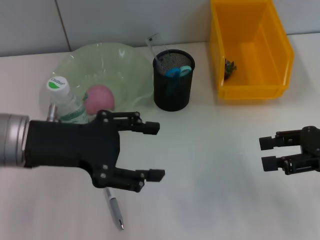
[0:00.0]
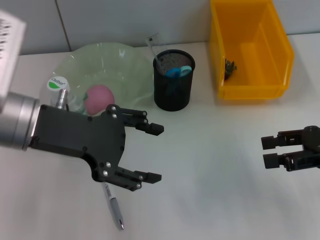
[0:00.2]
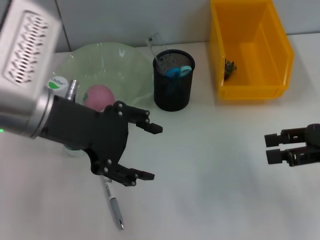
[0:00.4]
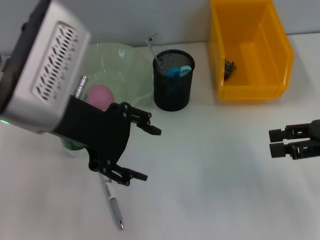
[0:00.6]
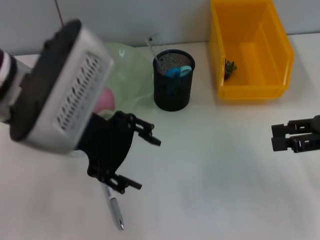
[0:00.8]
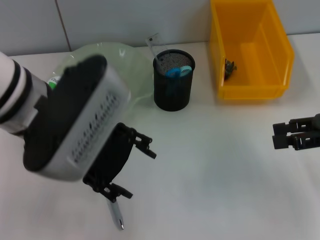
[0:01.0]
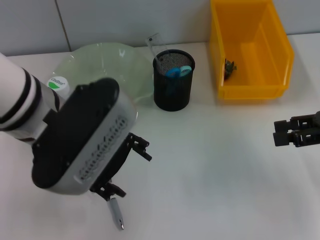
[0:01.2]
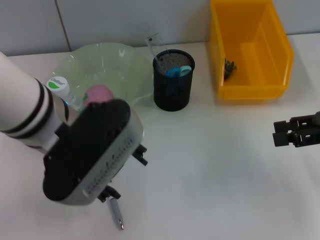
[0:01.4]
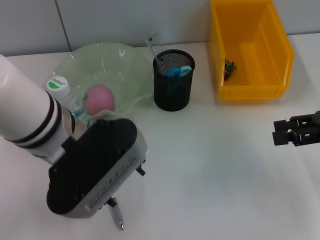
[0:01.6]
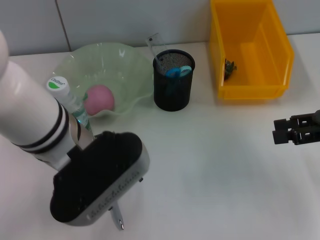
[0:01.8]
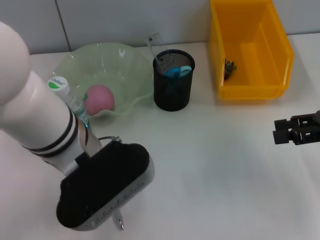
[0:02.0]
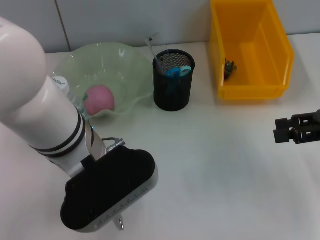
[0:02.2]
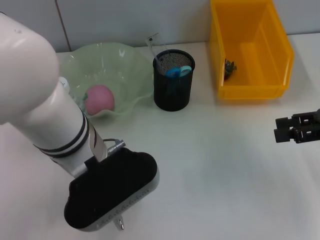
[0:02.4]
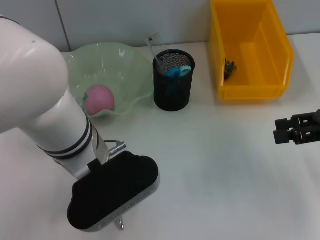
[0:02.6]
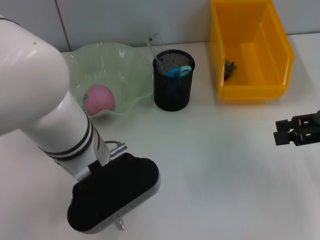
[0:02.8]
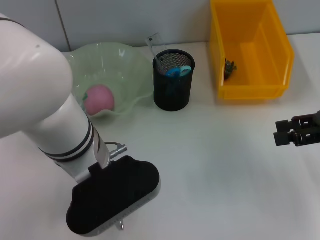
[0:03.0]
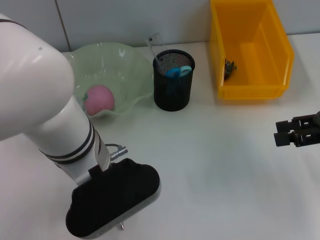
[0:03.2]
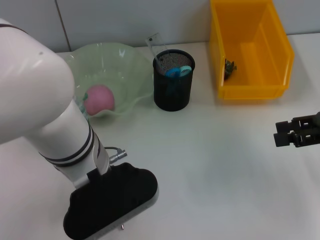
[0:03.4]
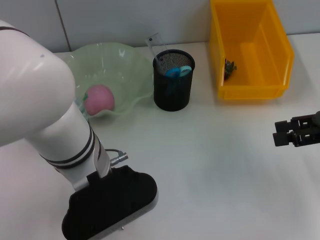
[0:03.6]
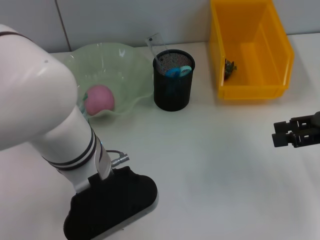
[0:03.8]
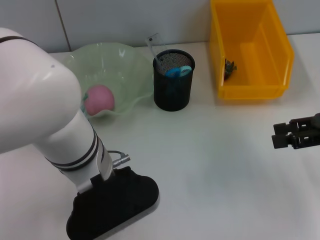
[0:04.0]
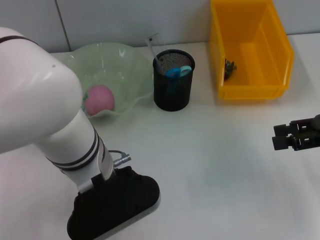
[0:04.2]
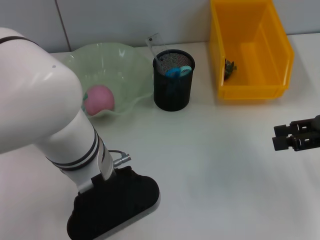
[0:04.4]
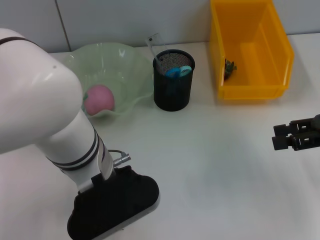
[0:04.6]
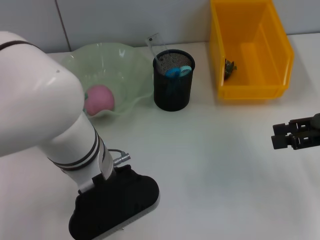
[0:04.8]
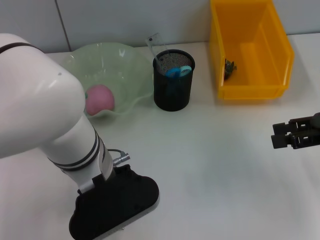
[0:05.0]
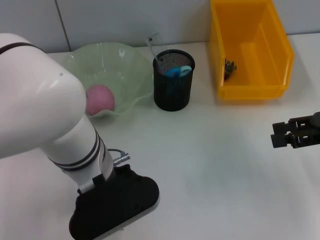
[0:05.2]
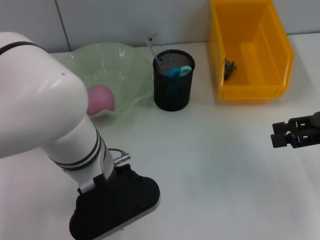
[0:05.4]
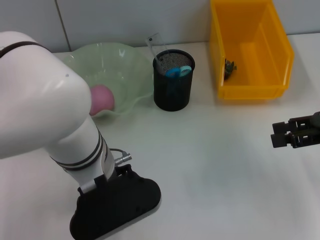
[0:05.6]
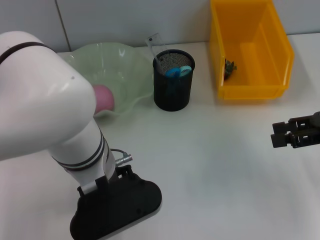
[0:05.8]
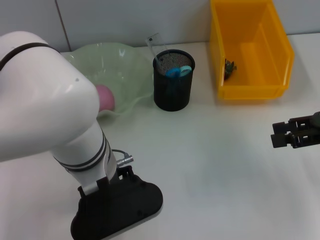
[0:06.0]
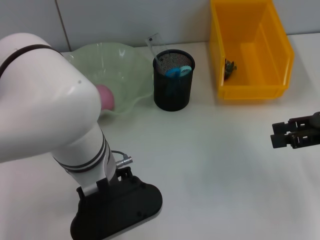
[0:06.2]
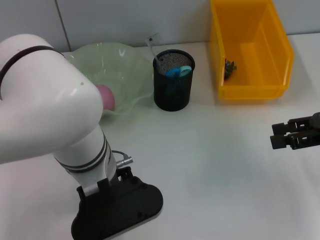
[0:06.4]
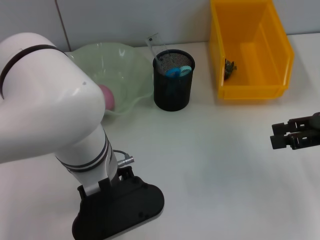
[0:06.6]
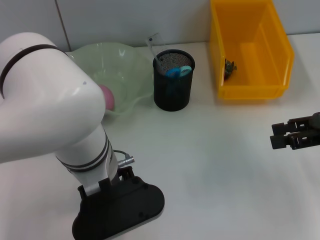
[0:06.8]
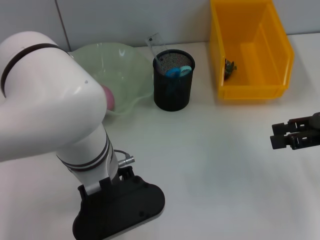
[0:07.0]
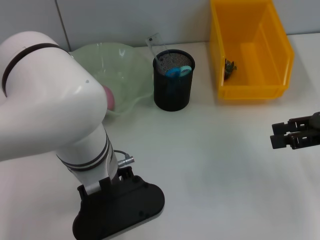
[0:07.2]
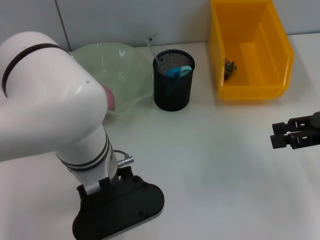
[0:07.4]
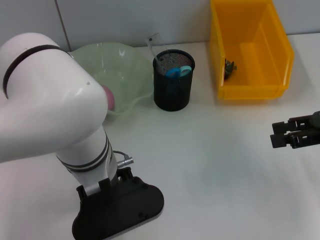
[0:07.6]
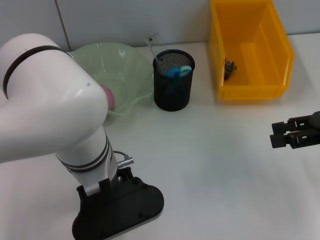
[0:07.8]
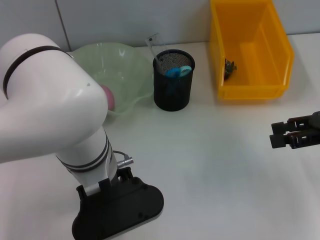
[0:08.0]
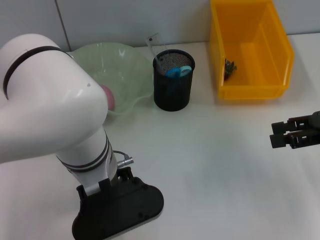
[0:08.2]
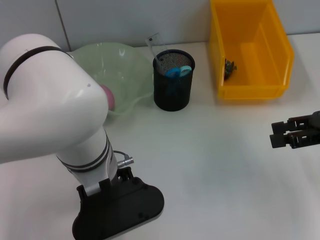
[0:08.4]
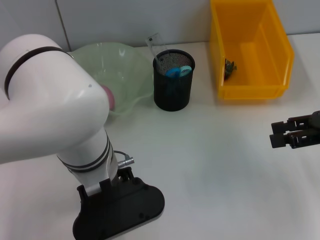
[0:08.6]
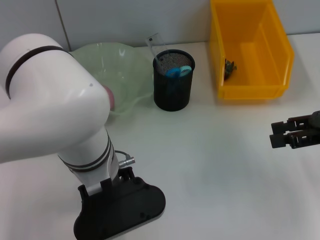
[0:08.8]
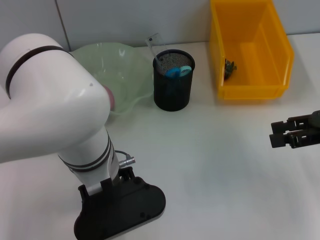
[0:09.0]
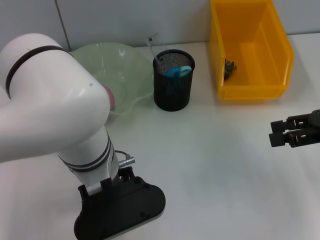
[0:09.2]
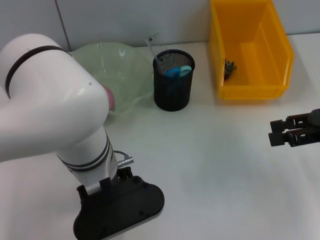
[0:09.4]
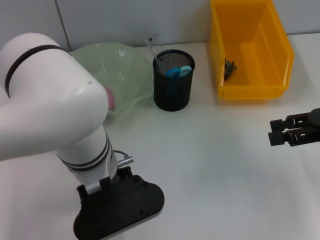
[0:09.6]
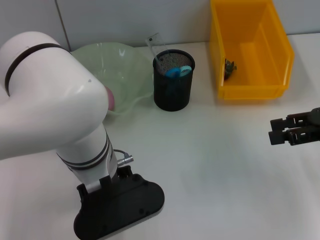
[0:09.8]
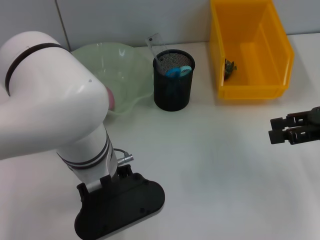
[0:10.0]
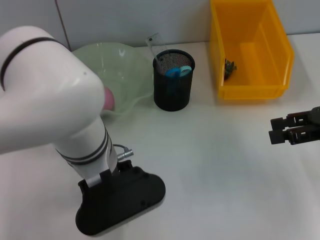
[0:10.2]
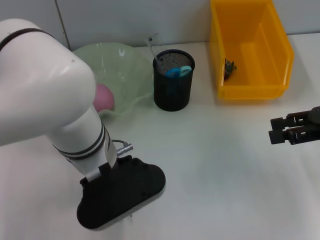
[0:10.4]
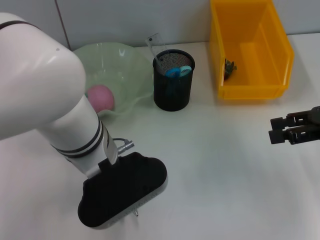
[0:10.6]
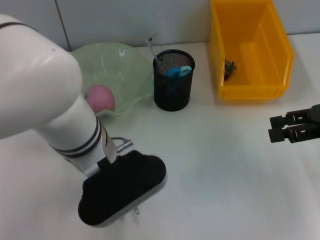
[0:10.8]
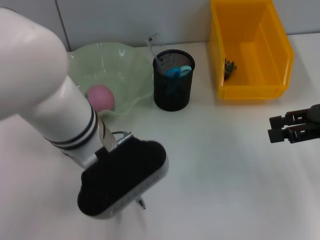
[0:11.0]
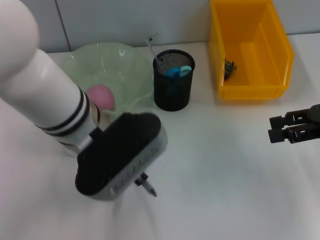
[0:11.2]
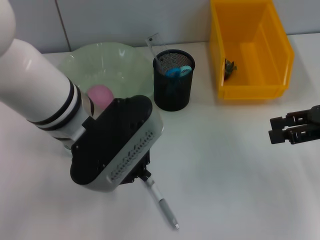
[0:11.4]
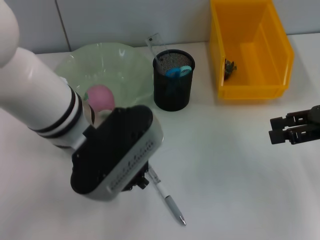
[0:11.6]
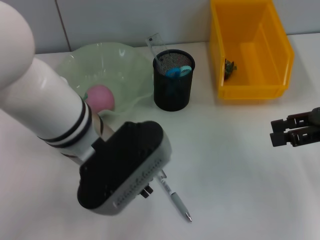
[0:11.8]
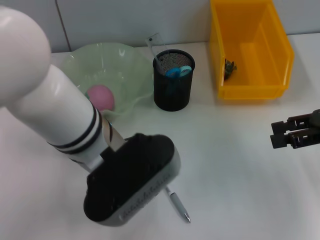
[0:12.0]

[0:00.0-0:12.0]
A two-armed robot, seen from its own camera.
0:00.0 to 0:01.6: The left gripper goes approximately 10 cm to the right.
0:01.6 to 0:03.0: The grippers stay close to where they were, moving slightly.
0:03.0 to 0:04.4: The grippers make only small movements.
0:04.4 to 0:06.0: Both grippers stay about where they are.
0:06.0 to 0:09.0: Both grippers stay about where they are.
0:09.0 to 0:10.4: There are only small adjustments of the grippers.

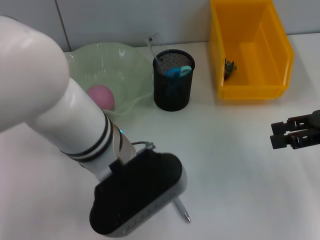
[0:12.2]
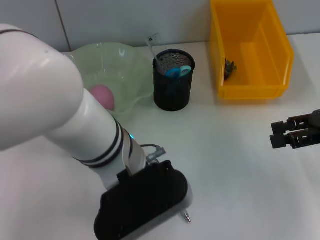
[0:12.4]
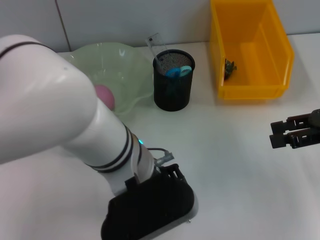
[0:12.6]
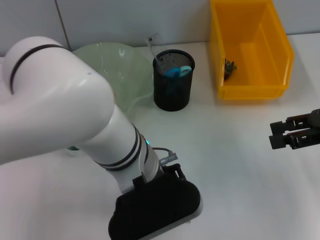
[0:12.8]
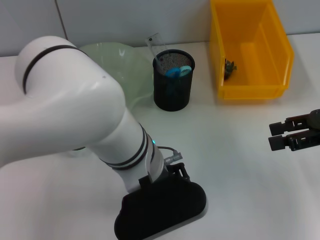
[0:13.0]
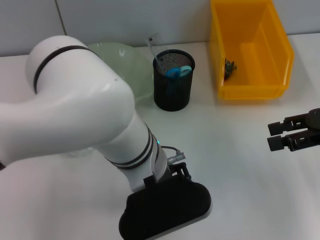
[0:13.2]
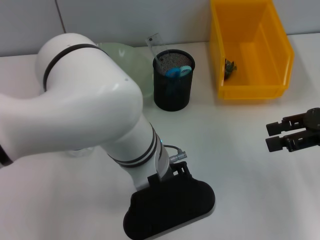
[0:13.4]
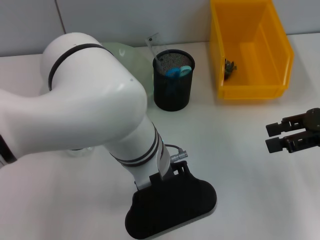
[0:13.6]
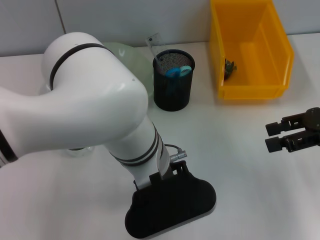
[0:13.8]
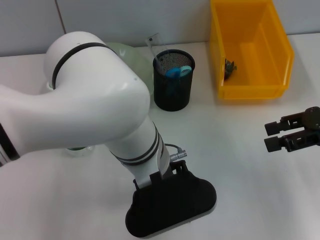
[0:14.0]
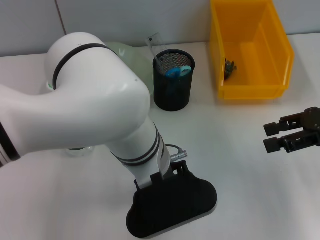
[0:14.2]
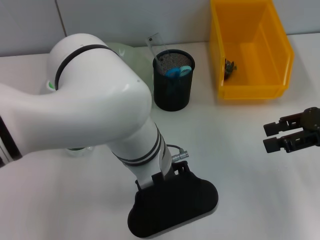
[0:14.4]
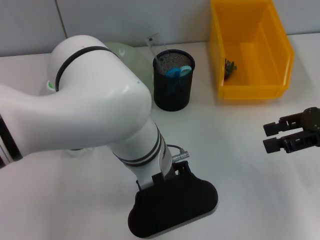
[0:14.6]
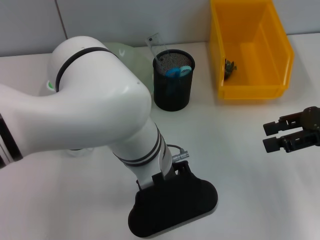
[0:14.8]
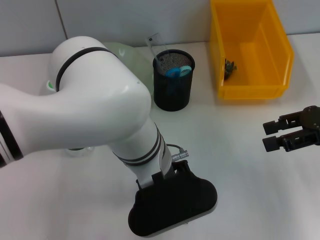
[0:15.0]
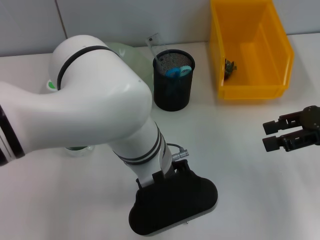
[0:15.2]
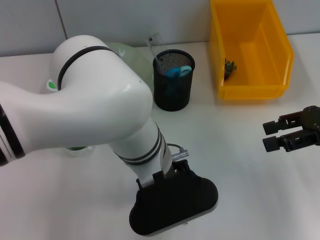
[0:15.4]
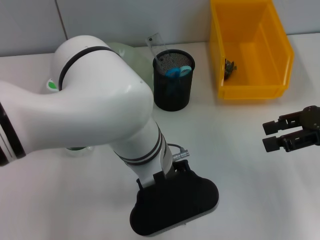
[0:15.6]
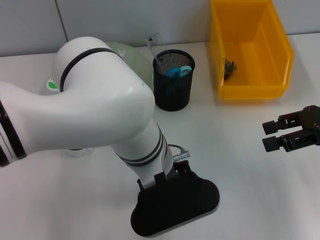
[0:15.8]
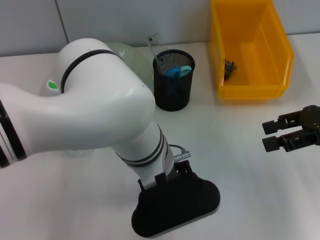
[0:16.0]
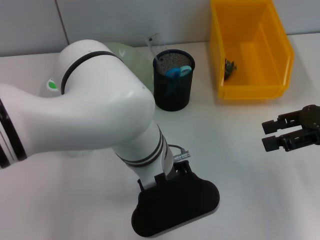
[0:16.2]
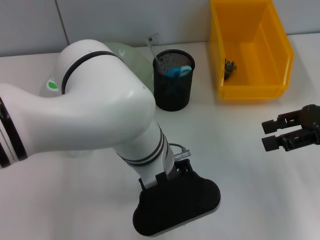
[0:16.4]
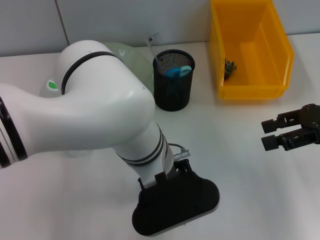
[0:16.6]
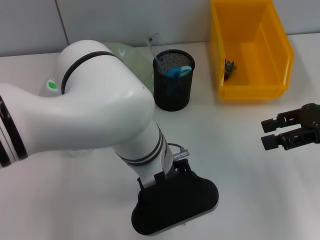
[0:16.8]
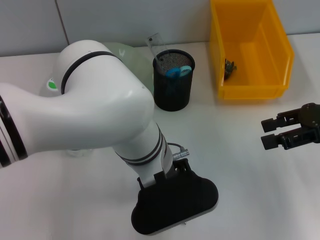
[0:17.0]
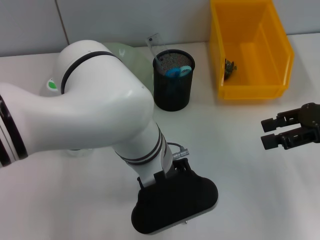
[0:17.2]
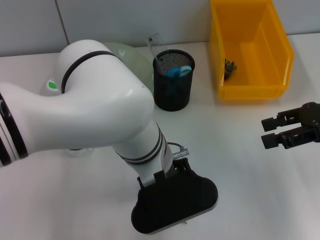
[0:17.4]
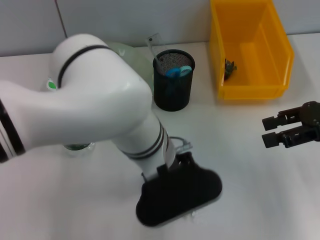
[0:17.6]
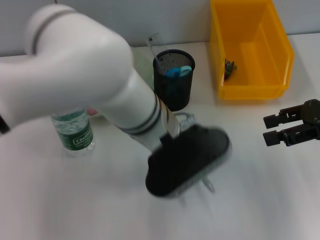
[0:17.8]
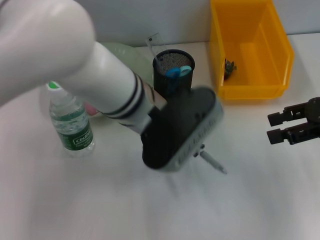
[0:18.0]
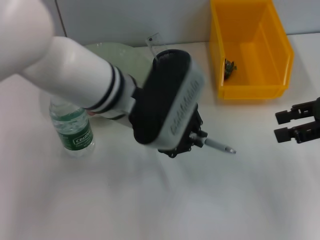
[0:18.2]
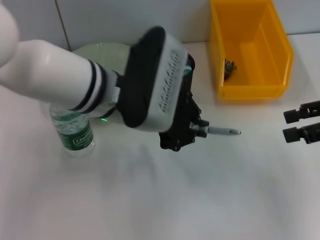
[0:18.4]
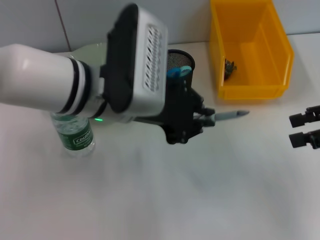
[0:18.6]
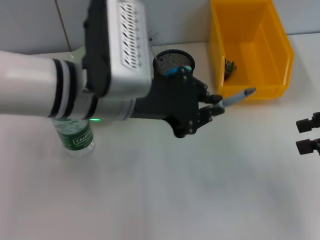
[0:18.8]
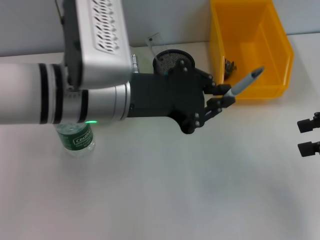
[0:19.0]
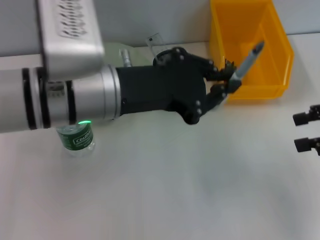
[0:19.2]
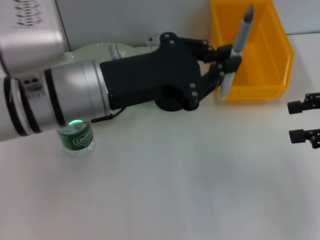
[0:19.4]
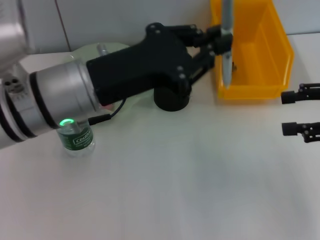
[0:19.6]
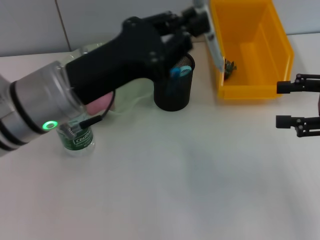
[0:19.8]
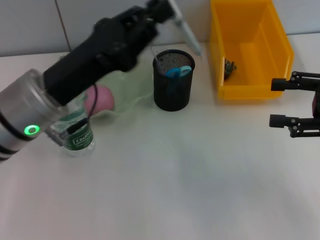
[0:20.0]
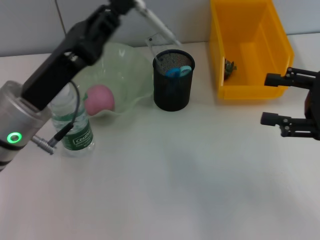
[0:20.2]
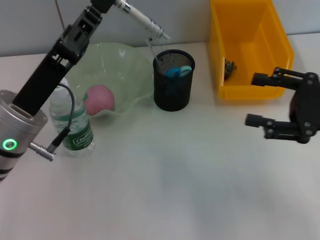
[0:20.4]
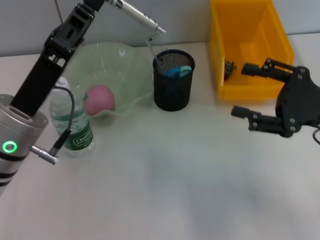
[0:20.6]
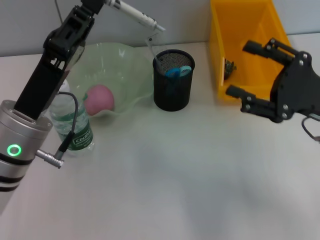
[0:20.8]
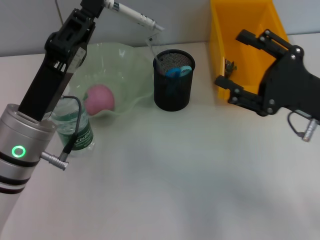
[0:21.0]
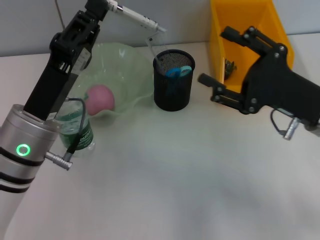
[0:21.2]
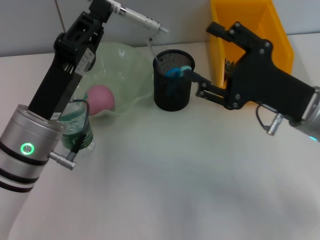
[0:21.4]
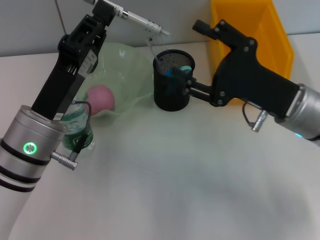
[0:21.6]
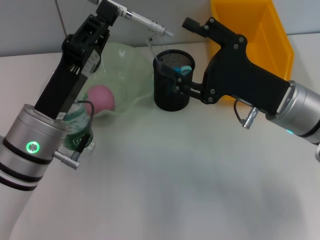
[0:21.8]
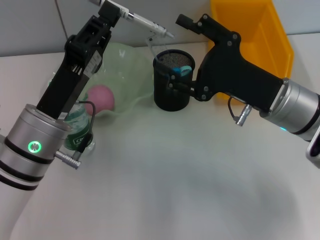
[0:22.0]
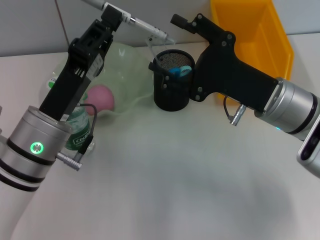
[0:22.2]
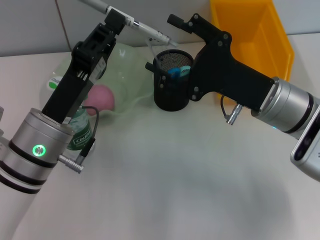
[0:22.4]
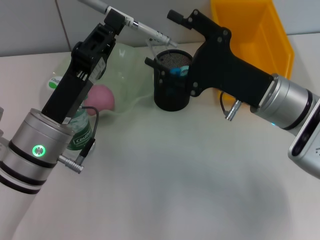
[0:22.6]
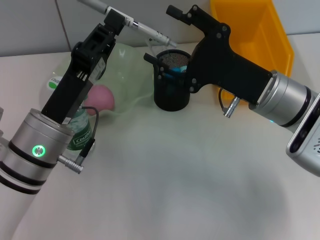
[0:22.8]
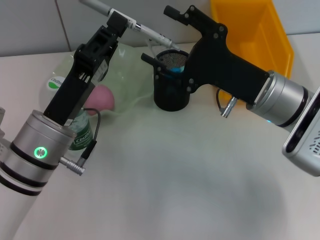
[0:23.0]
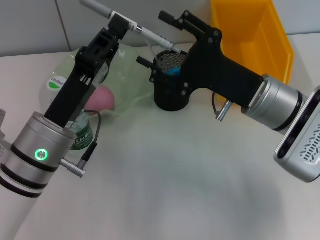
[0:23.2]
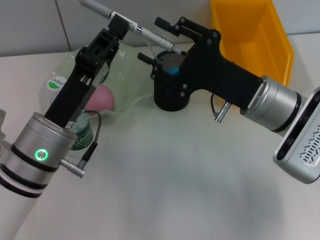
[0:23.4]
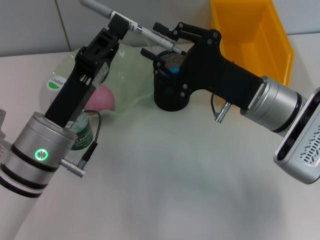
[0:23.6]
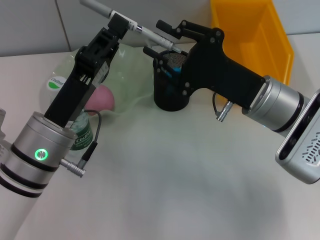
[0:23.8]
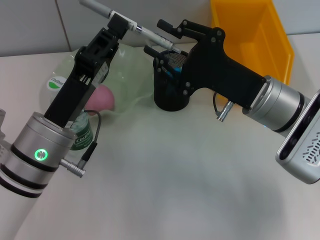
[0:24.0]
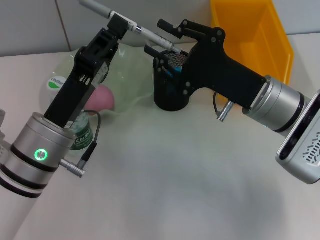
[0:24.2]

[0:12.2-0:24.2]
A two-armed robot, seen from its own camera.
Step, 0:12.2 to 0:17.0: Grab the gray spring-action pen with the left hand.
0:12.2 to 0:13.8: The left gripper moves some 5 cm, and opens.
0:13.8 to 0:15.2: The left gripper closes its fingers.
0:15.2 to 0:16.6: The two grippers keep their place.
0:16.6 to 0:18.2: The left gripper goes approximately 5 cm upward.
0:18.2 to 0:19.8: The left gripper moves to the left, some 10 cm.
0:19.8 to 0:21.2: The right gripper is displaced to the left and downward by some 10 cm. The left gripper is displaced downward by roughly 5 cm.
0:21.2 to 0:22.6: The right gripper shifts some 5 cm to the left.
0:22.6 to 0:24.2: The right gripper closes up.
